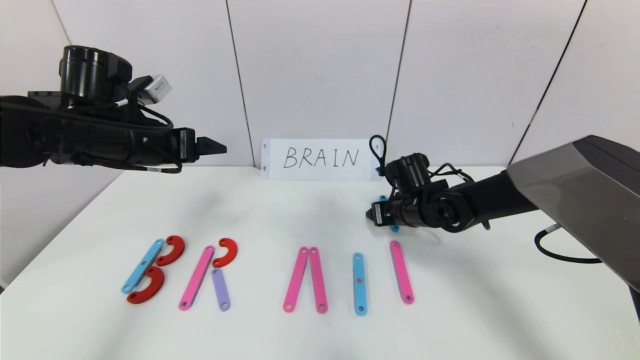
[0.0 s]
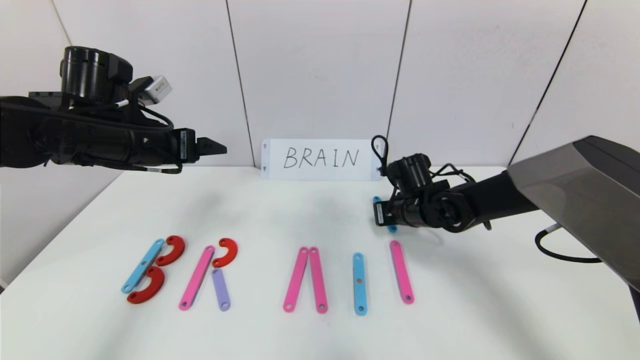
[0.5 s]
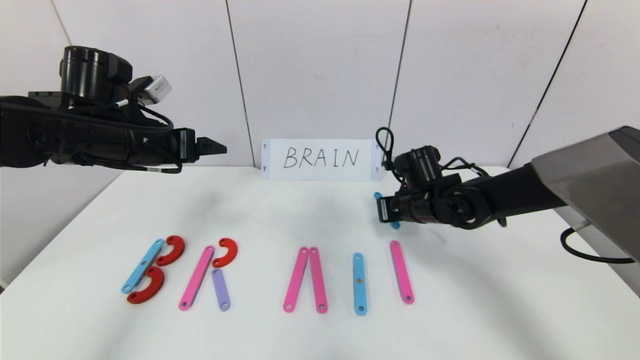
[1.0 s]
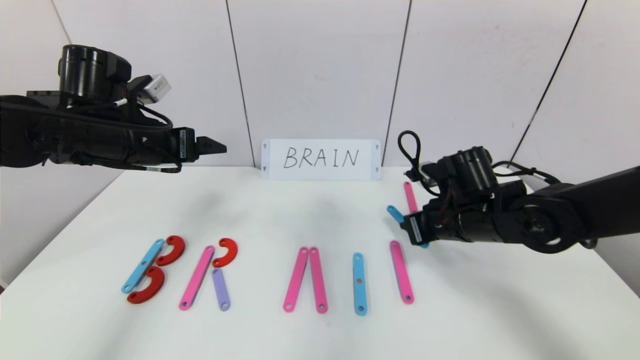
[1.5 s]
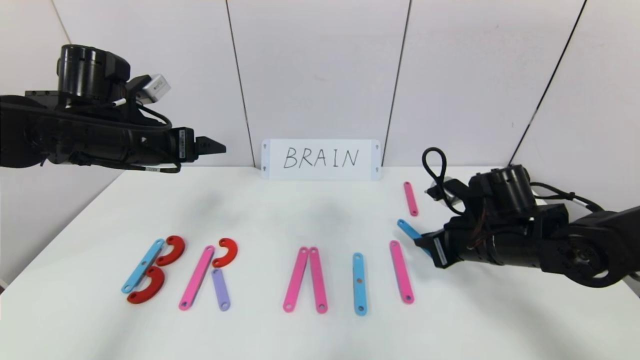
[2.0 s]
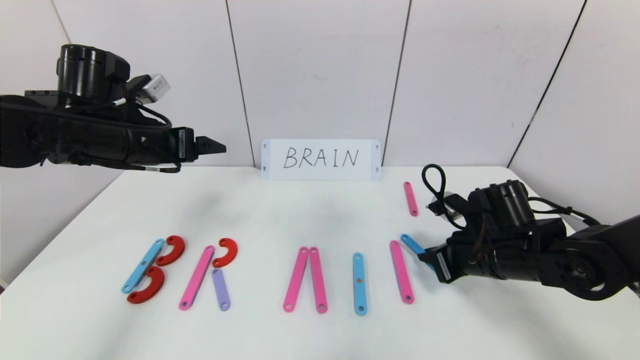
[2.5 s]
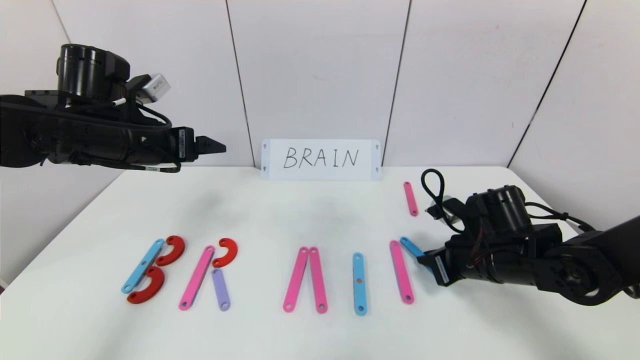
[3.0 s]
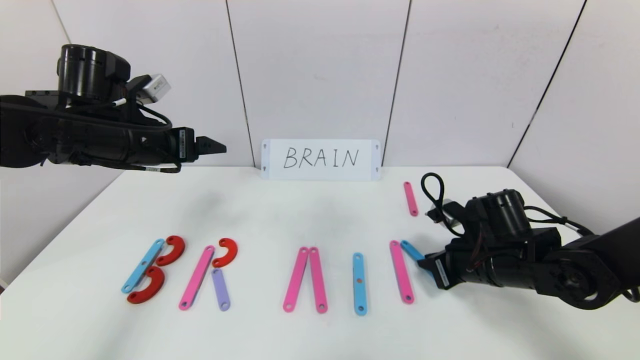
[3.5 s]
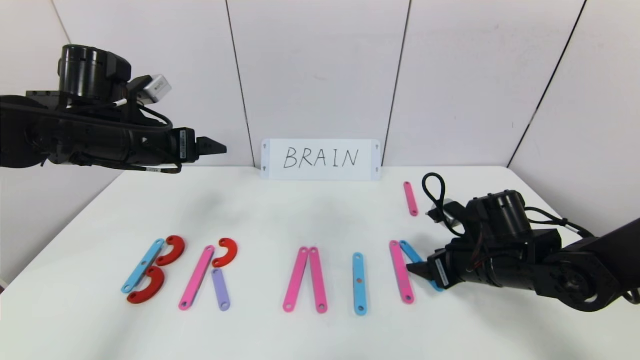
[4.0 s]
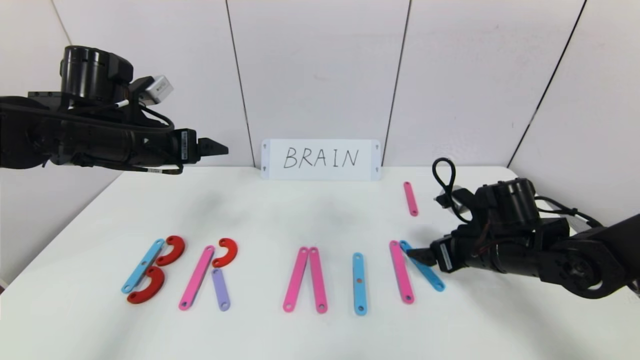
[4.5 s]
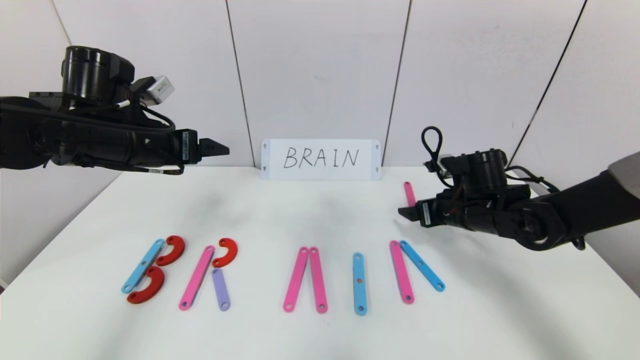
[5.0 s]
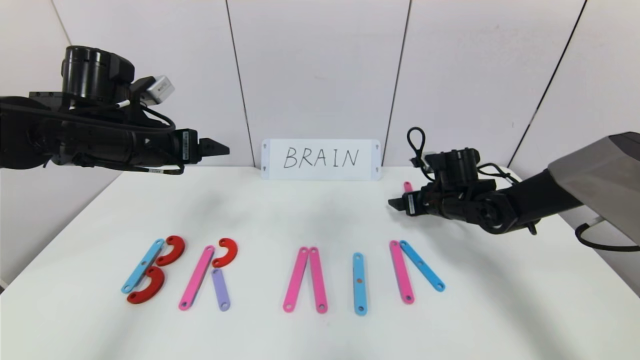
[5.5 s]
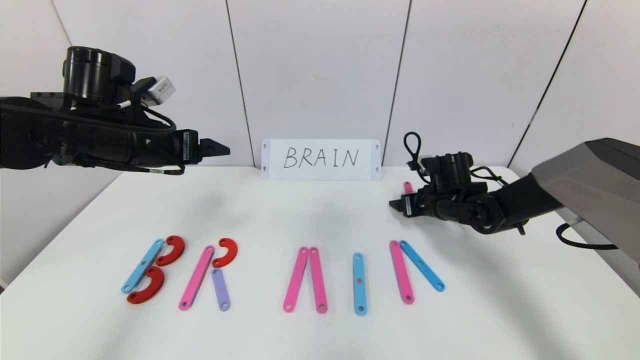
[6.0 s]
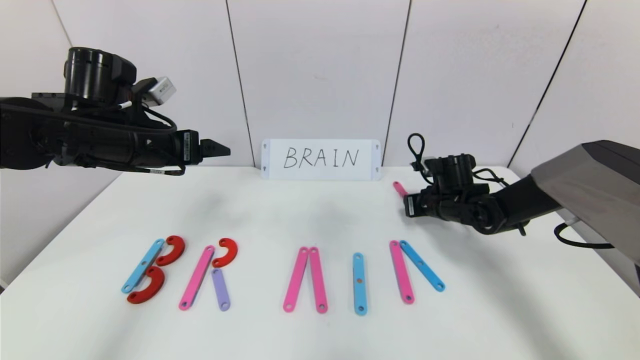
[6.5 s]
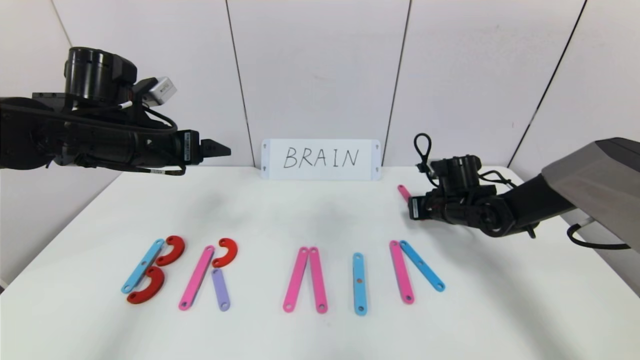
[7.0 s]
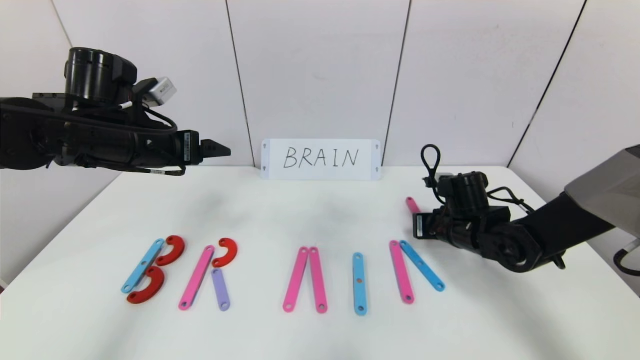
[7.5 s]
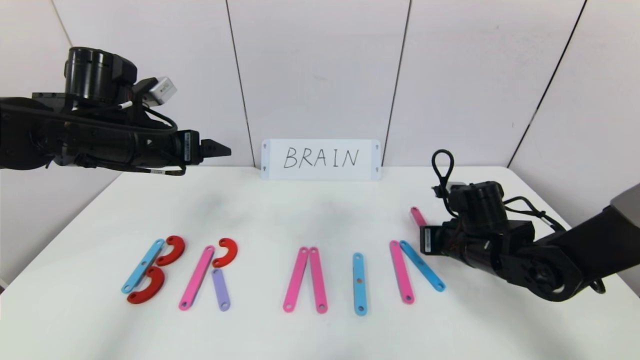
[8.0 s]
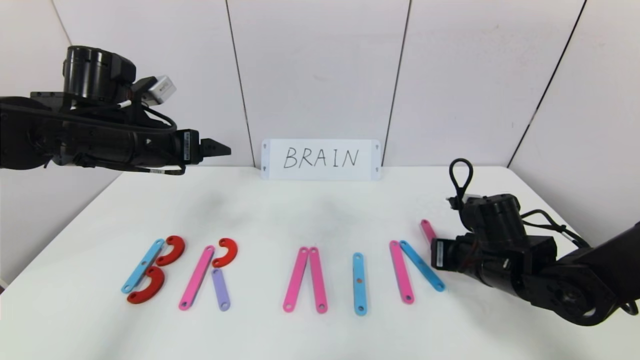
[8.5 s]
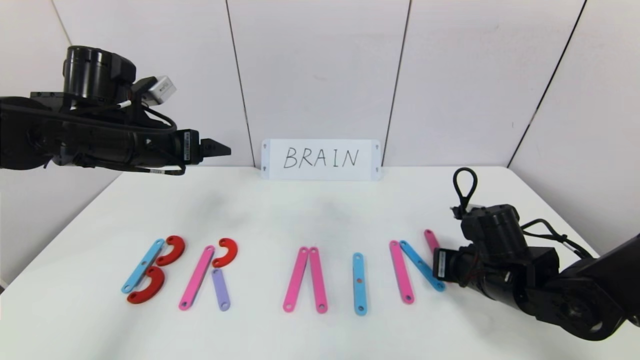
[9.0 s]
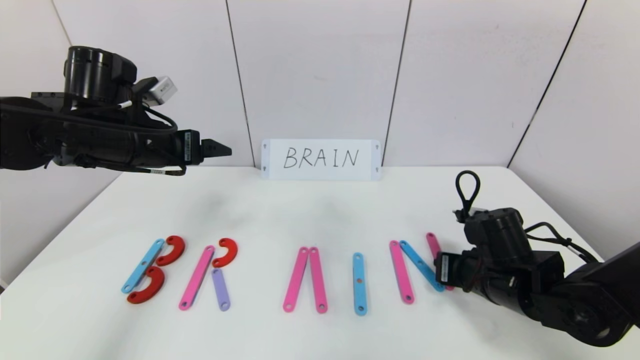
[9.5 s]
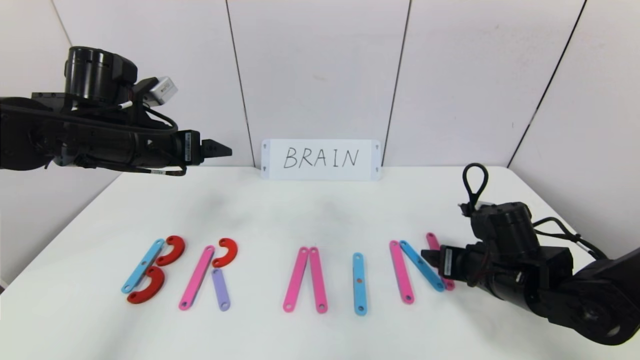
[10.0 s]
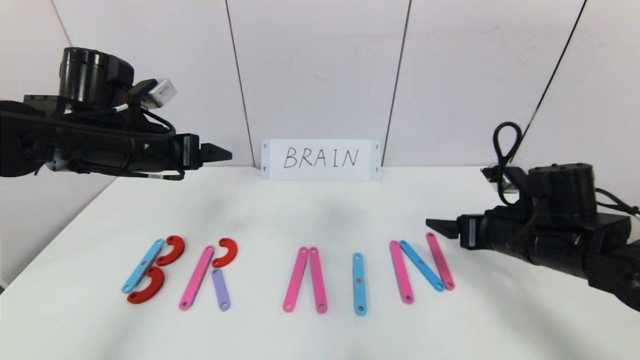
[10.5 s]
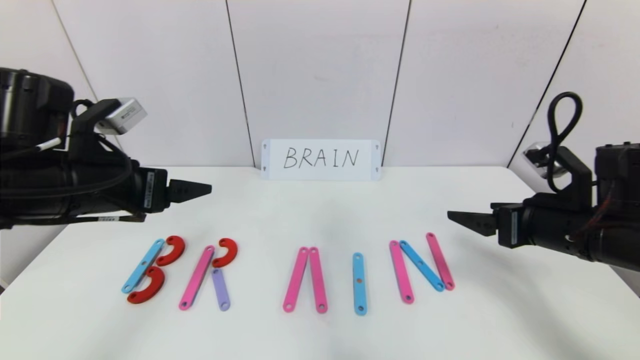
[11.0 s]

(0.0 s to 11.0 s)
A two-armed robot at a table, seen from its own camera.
Task of the whole recording: rearrange the word baai as brain.
Step, 0.0 s - 10.0 s: Place the character N after character I.
0.0 s - 2.0 s: The right gripper moves backward and to the right, some 15 cm, and closes its fingers.
2.0 s - 3.5 s: The grippers make only small movements.
3.5 s - 5.5 s: The right gripper heads forward, covering about 15 cm, and opens.
5.5 s - 7.5 s: The right gripper is displaced backward by about 5 cm, and closes its fingers.
7.5 s - 9.0 s: The right gripper is displaced backward by approximately 10 cm.
9.0 s - 11.0 s: The left gripper shifts approximately 10 cm backward; the right gripper moves upward and to the right, roughly 15 cm, and opens.

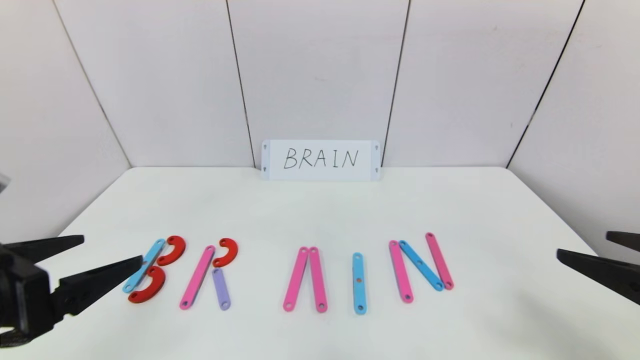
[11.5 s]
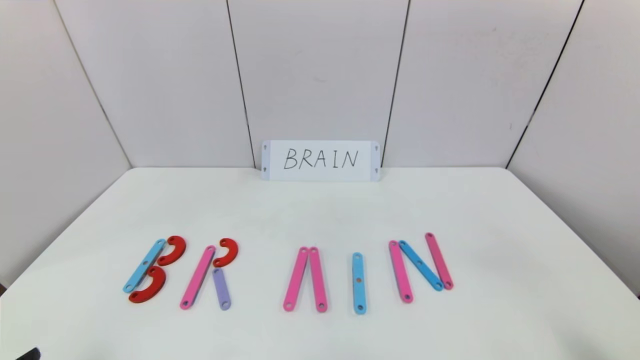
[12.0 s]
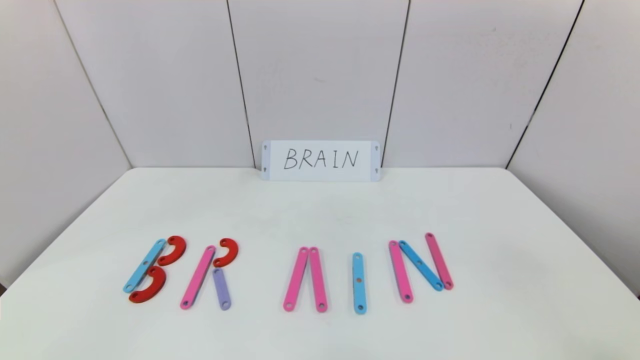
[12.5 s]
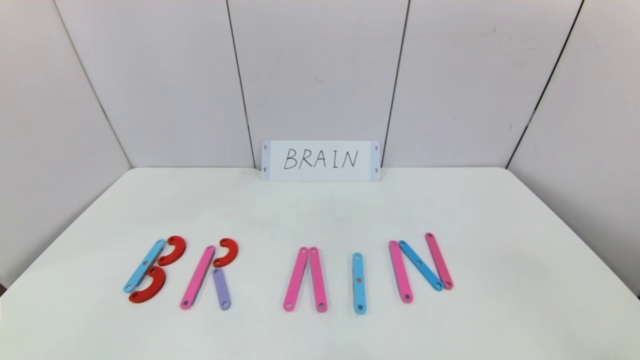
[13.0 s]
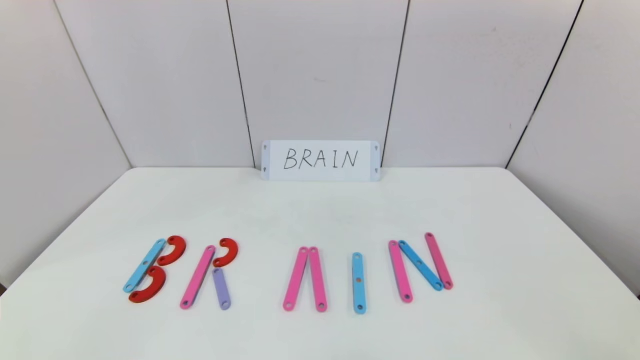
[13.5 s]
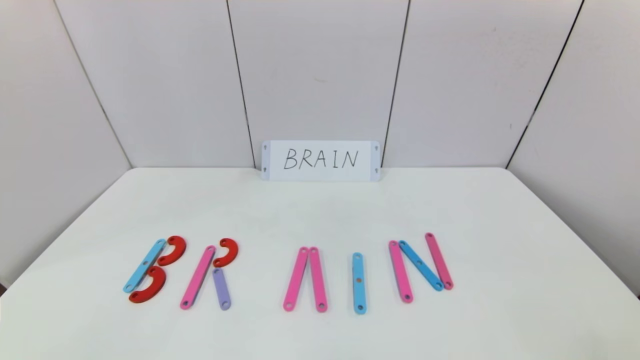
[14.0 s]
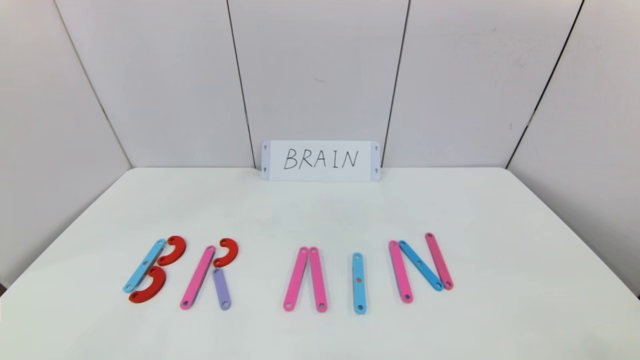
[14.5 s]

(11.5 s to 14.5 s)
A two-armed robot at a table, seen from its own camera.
Task of the whole recording: rearrange the word baai as brain.
11.5 s - 13.0 s: Both grippers move backward, about 15 cm.
